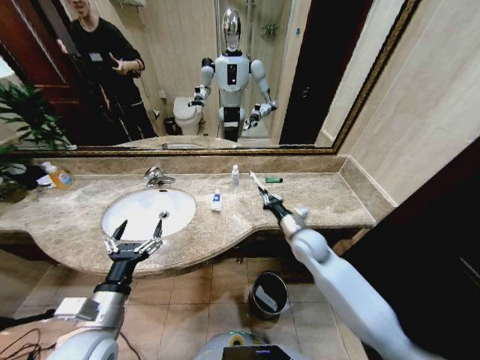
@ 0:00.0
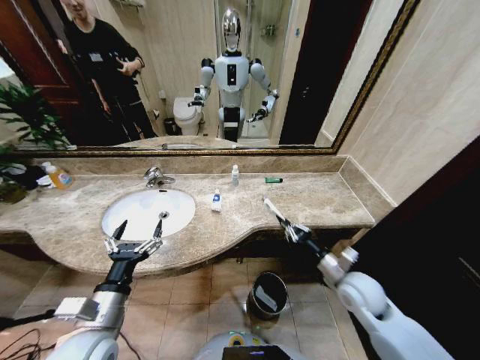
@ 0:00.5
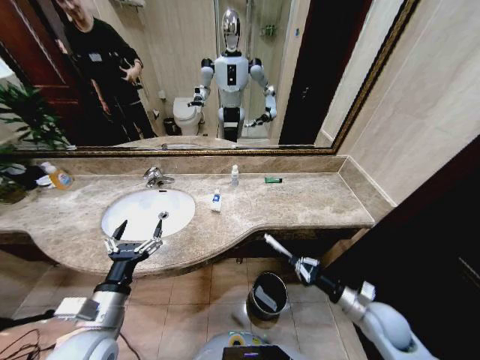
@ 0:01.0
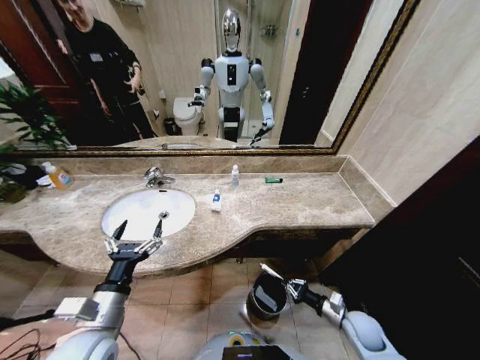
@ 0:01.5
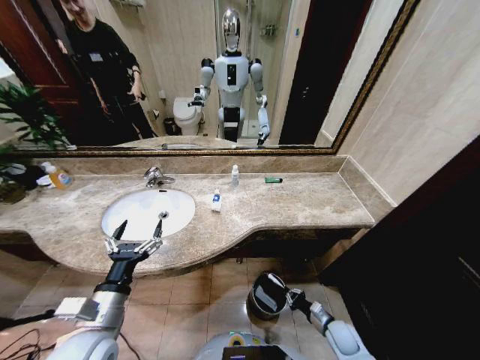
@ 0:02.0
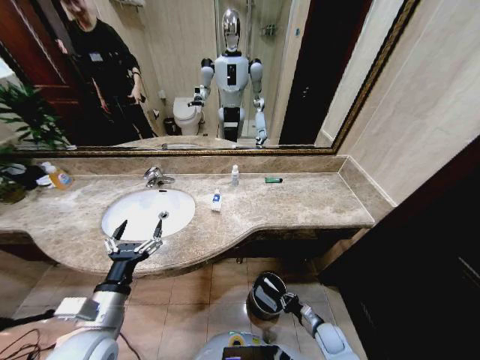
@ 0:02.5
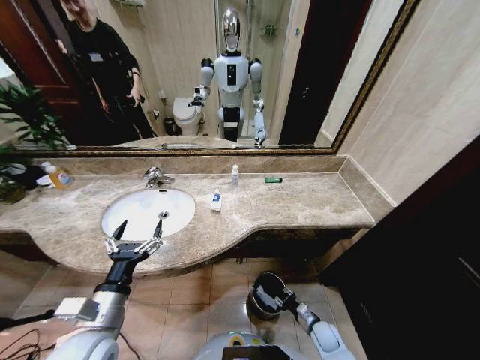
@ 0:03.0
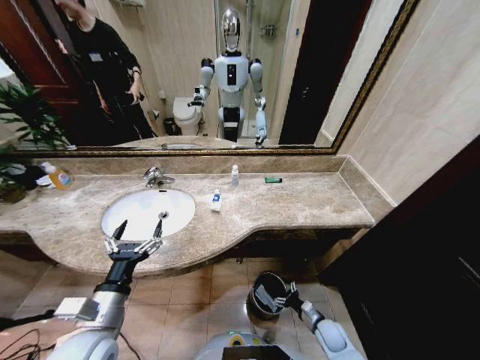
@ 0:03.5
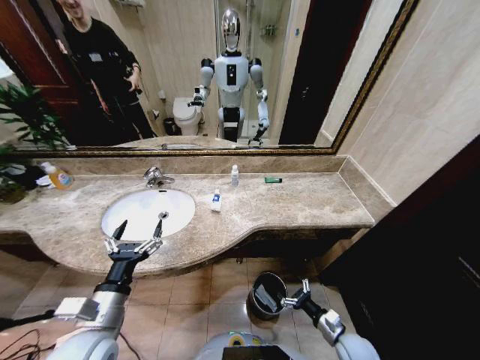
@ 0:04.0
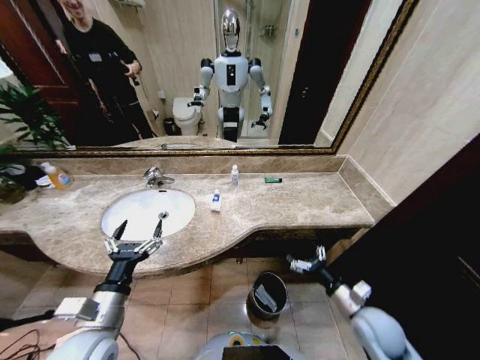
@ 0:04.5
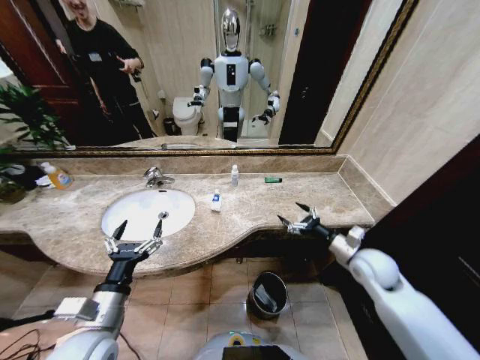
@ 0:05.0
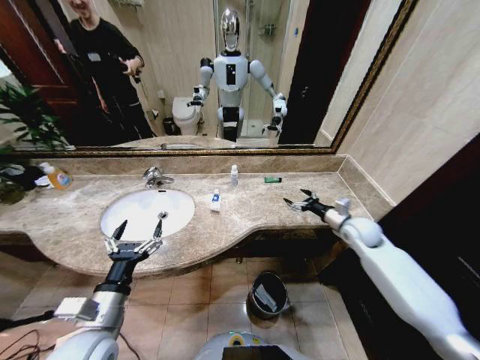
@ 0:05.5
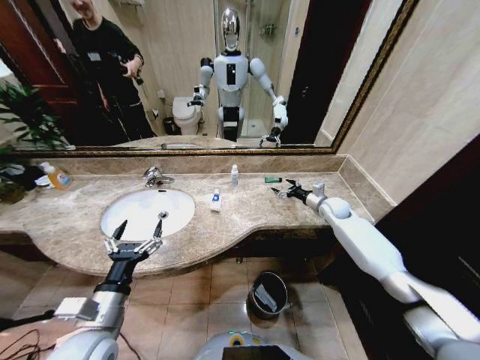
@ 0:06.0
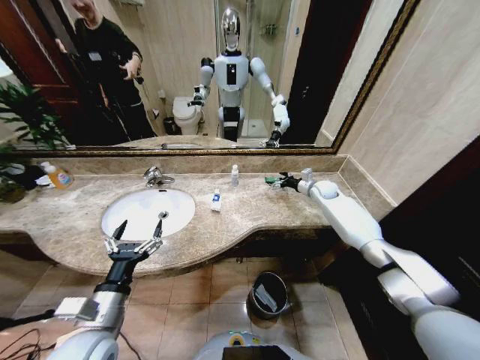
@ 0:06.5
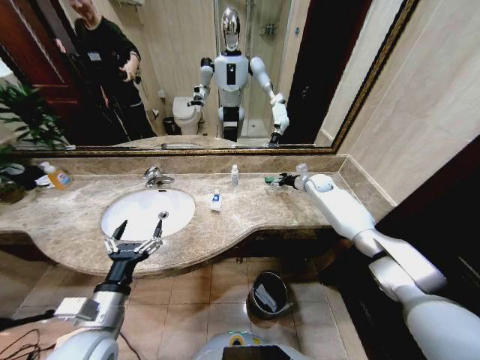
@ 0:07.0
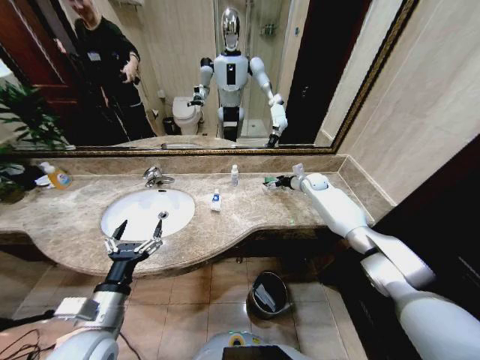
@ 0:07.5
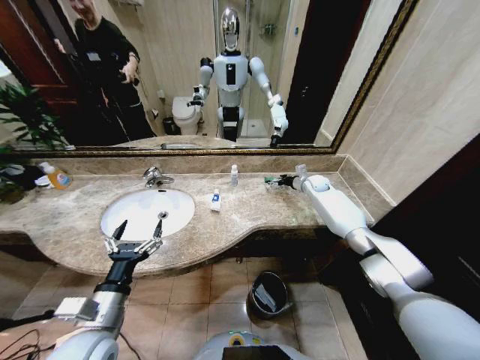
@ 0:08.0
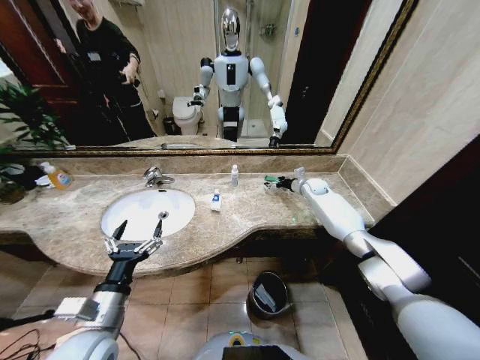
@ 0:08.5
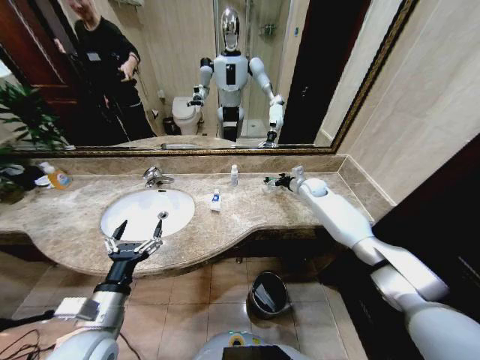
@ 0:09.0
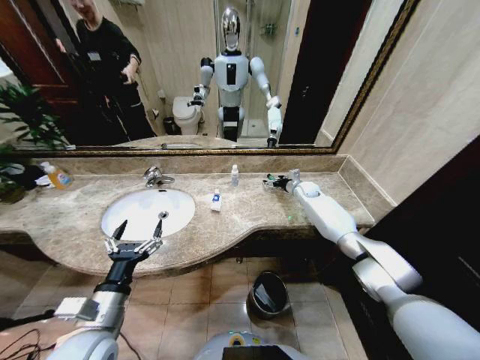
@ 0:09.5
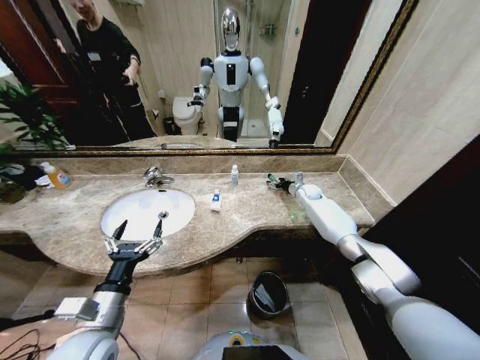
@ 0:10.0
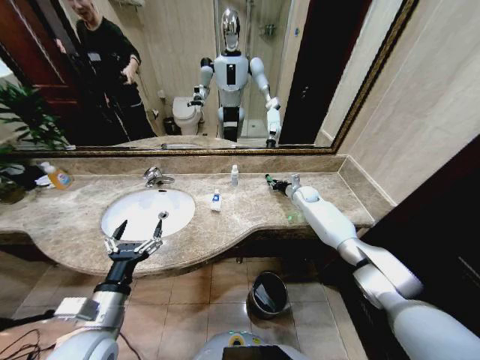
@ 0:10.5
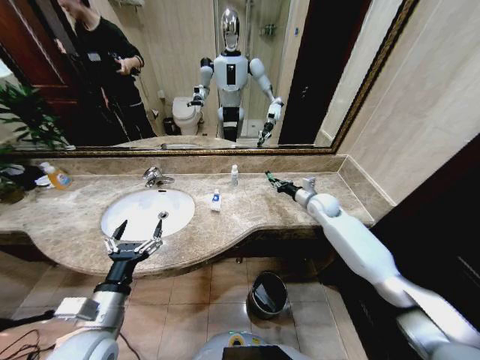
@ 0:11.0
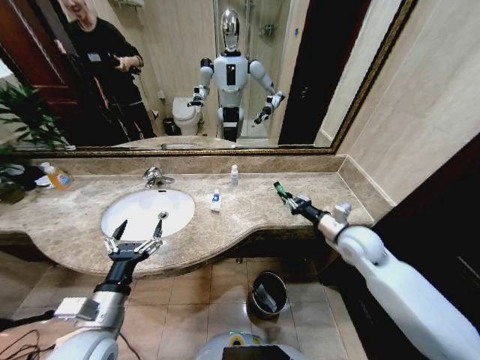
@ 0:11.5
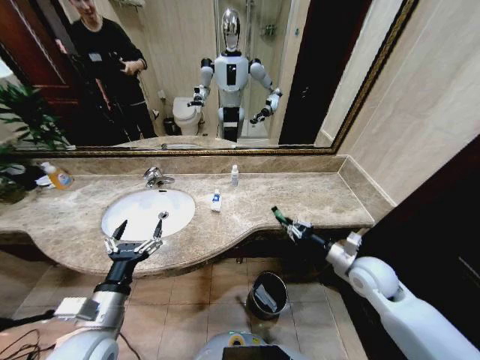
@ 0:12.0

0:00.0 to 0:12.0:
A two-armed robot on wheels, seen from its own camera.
Task of the whole recording: Pick up the trash from the sink and place it in the trash bin.
0:00.0 to 0:02.0: The right gripper is displaced downward, backward and to the right by about 35 cm.
0:02.0 to 0:04.0: The right gripper travels upward by about 5 cm, and opens.
0:04.0 to 0:06.0: The right gripper moves forward and upward, approximately 40 cm.
0:06.0 to 0:08.0: The right gripper is displaced forward by approximately 10 cm.
0:08.0 to 0:10.0: The grippers make only small movements.
0:10.0 to 0:12.0: The right gripper travels backward by about 35 cm, and closes up.

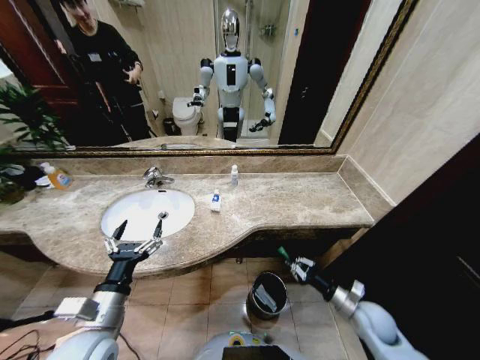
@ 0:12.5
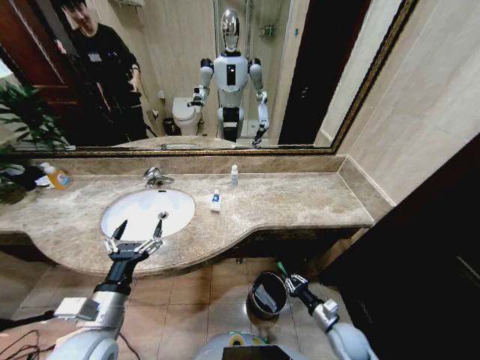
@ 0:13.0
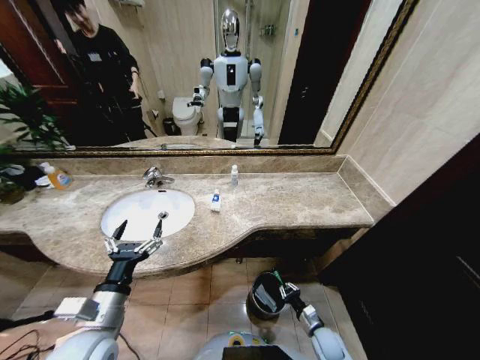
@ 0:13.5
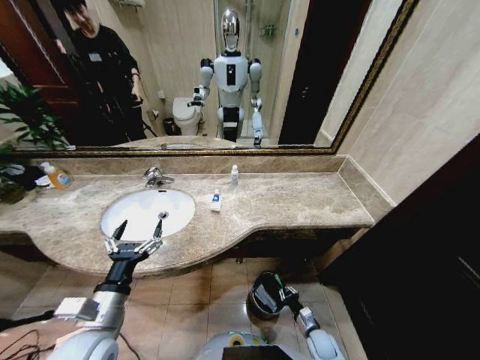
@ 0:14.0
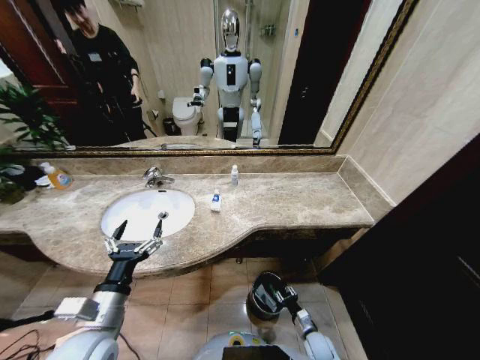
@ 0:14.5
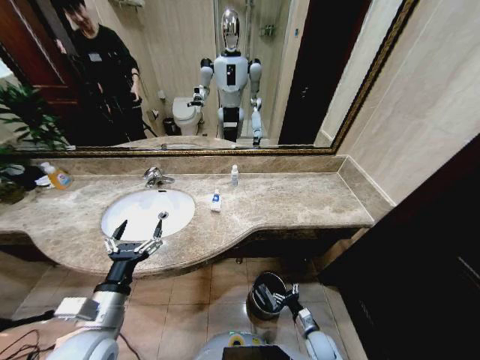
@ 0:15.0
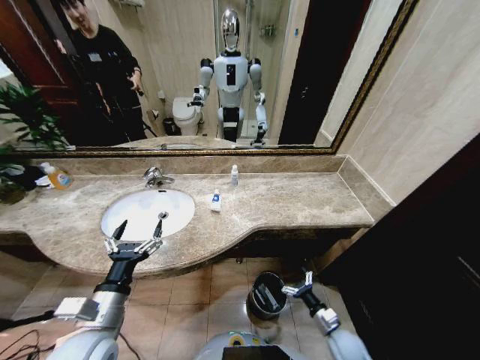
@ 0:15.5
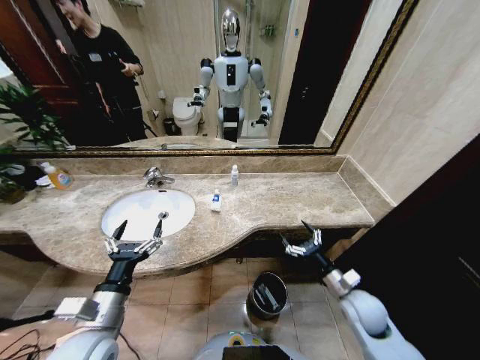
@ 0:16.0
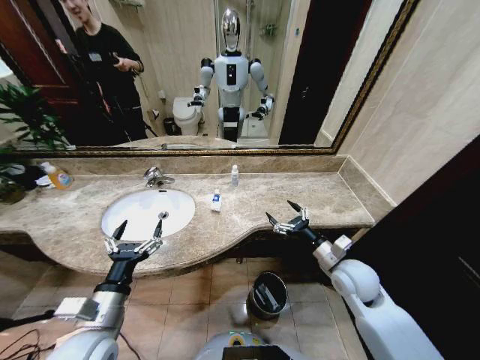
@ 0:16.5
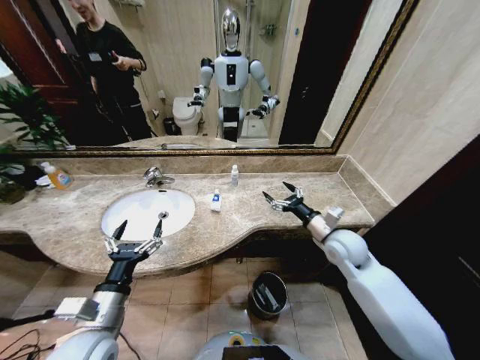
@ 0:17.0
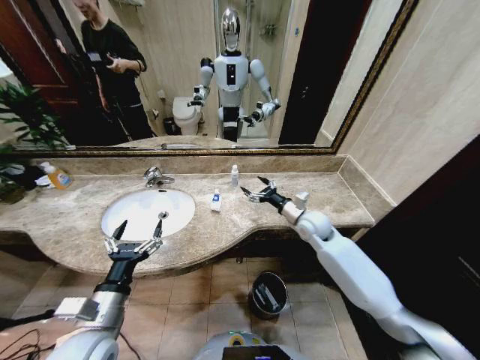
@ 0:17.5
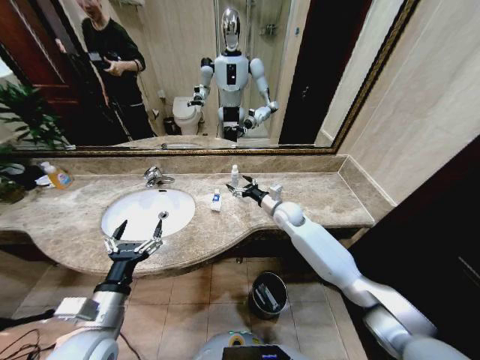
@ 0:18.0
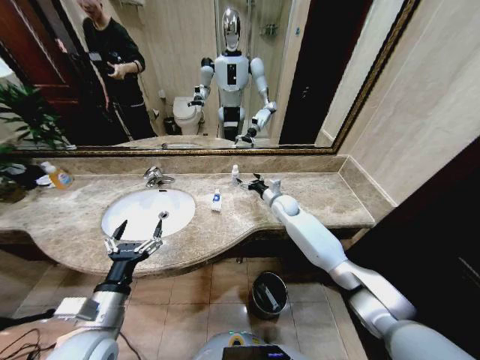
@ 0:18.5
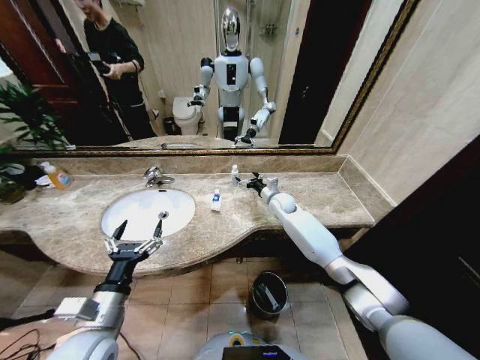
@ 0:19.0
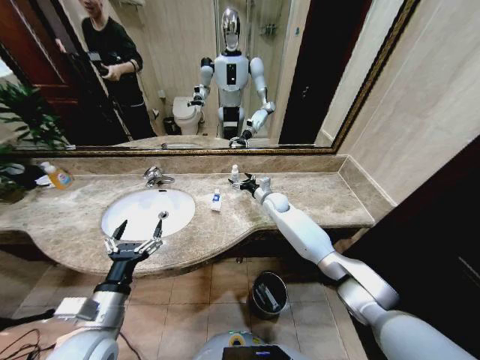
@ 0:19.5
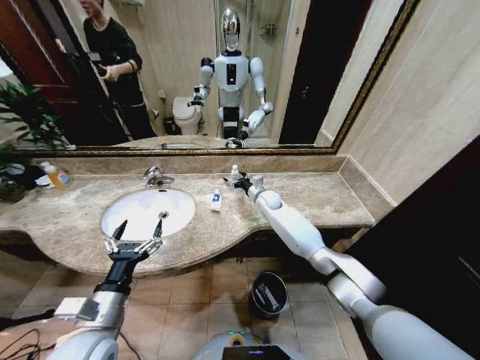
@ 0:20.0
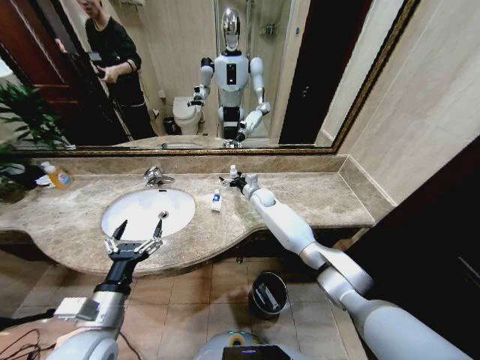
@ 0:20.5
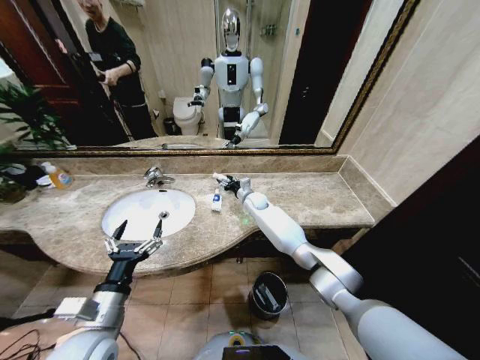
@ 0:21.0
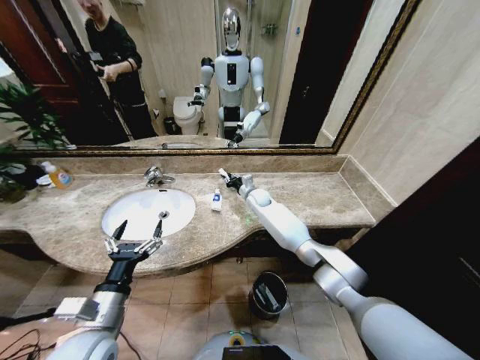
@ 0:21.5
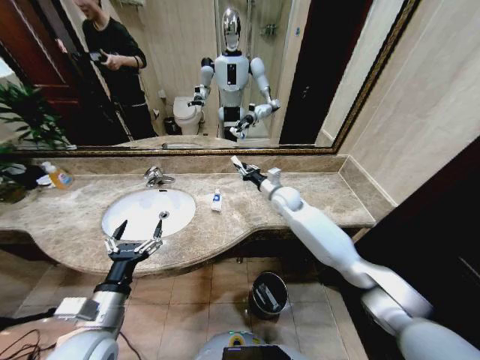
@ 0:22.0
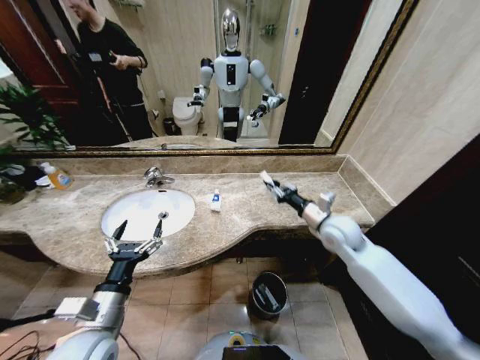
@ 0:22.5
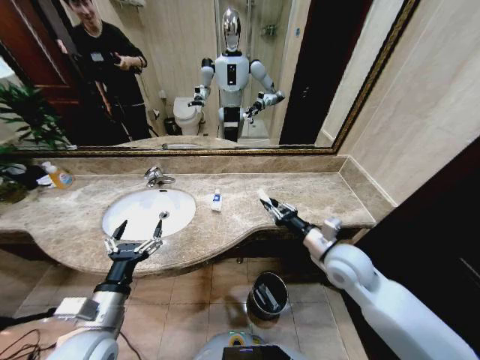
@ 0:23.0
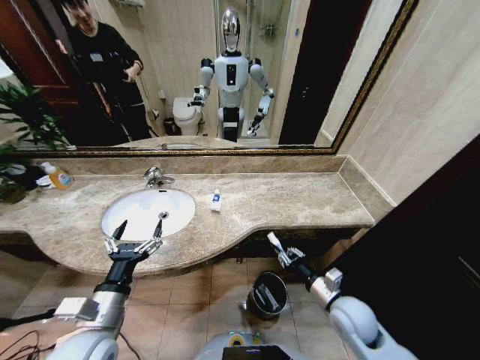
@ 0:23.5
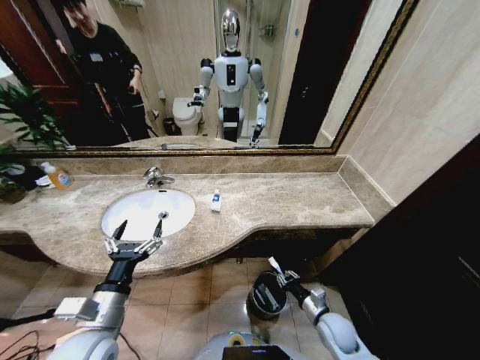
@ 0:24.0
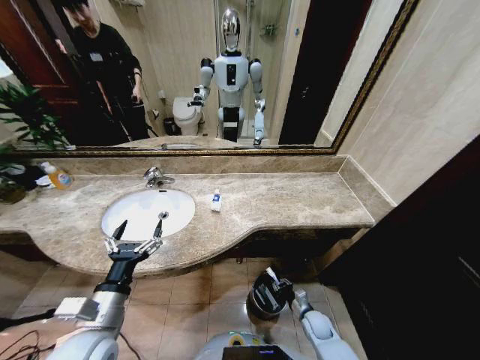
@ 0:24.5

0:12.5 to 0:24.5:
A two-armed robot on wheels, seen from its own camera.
Task of the whole recording: Pick up the trash from the sink and place it in the trash bin.
0:12.5 to 0:14.5: The right gripper is displaced downward and to the left by about 25 cm.
0:14.5 to 0:16.5: The right gripper goes about 35 cm upward, and opens its fingers.
0:16.5 to 0:18.5: The right gripper is displaced forward by approximately 30 cm.
0:18.5 to 0:20.5: The right gripper goes some 10 cm to the left.
0:20.5 to 0:22.5: The right gripper moves backward and to the right, some 30 cm, and closes.
0:22.5 to 0:24.5: The right gripper goes about 40 cm downward and backward.

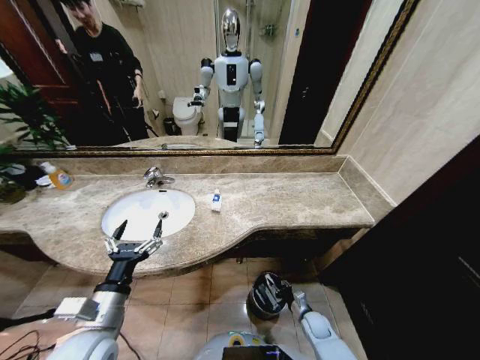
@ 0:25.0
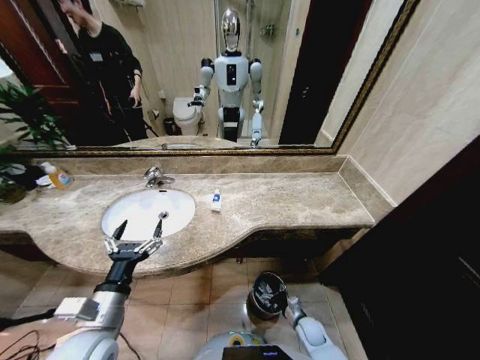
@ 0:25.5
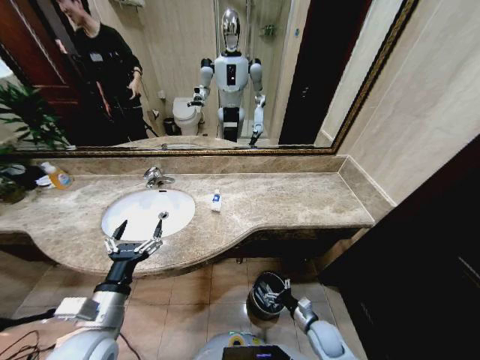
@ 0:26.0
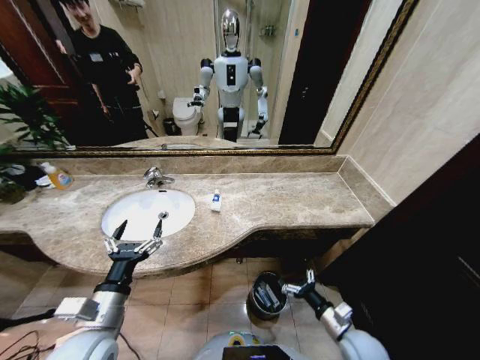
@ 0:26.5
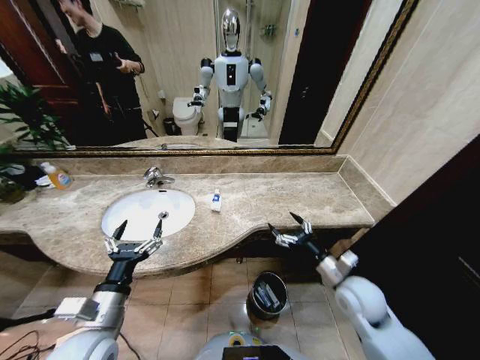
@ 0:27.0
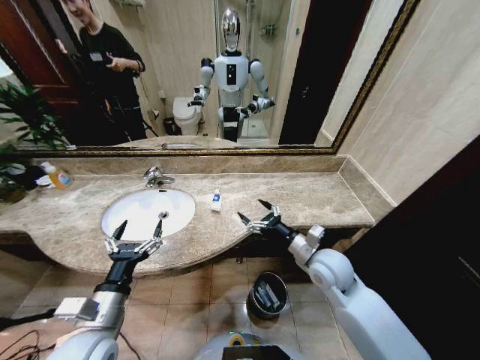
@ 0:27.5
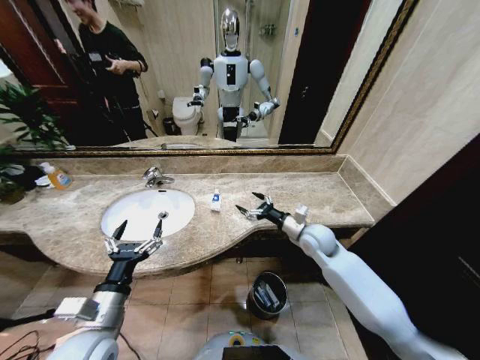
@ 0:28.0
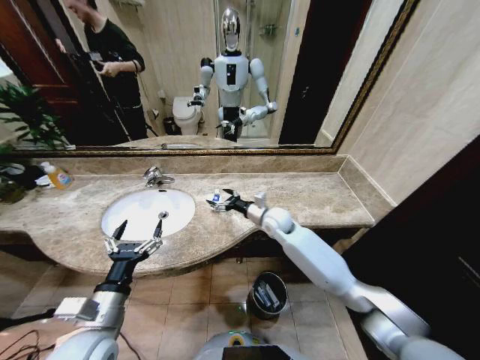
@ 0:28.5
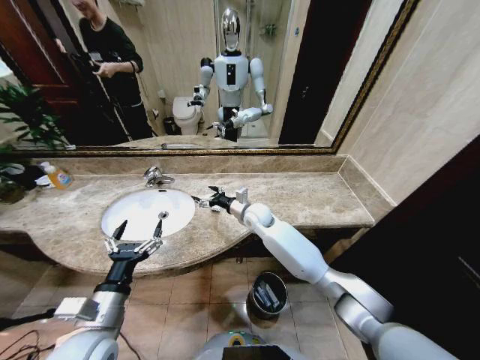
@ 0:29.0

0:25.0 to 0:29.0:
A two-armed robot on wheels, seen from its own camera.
Task of the whole recording: Pick up the trash from the sink and place it in the trash bin.
0:25.0 to 0:27.0: The right gripper goes roughly 30 cm upward, and opens its fingers.
0:27.0 to 0:29.0: The right gripper moves forward and to the left, roughly 35 cm.
